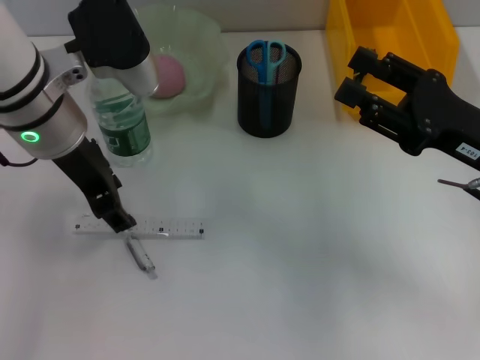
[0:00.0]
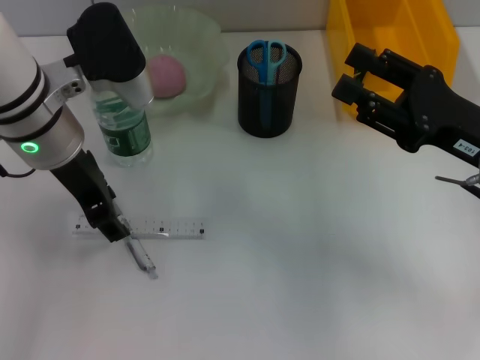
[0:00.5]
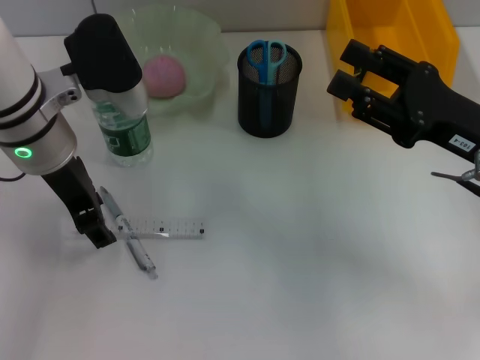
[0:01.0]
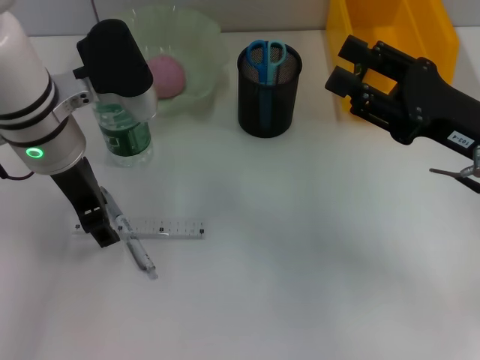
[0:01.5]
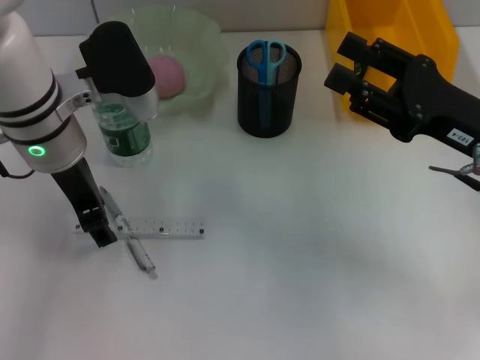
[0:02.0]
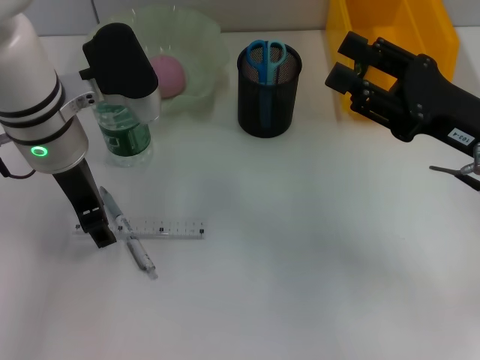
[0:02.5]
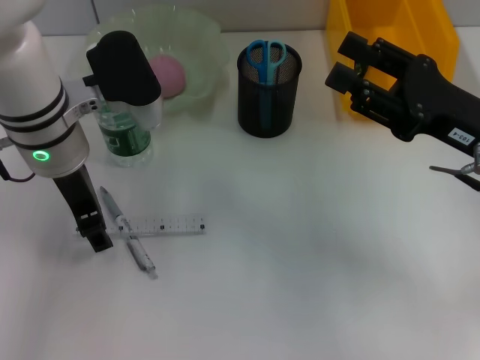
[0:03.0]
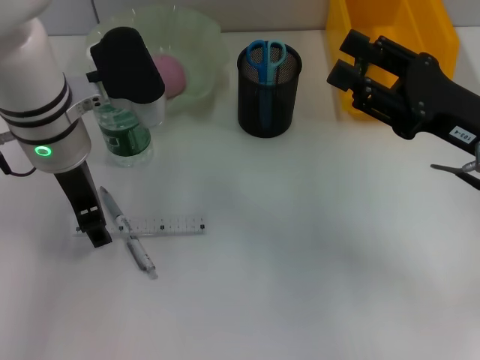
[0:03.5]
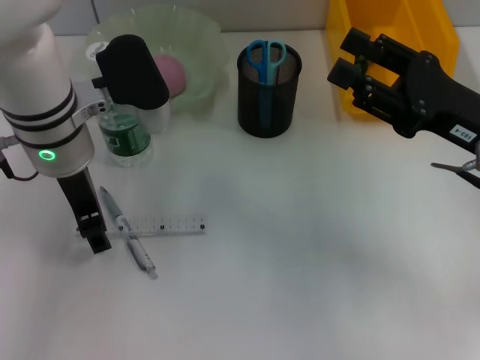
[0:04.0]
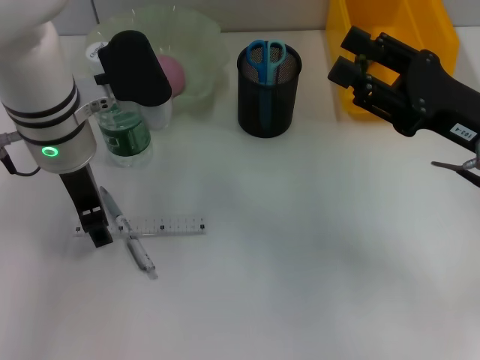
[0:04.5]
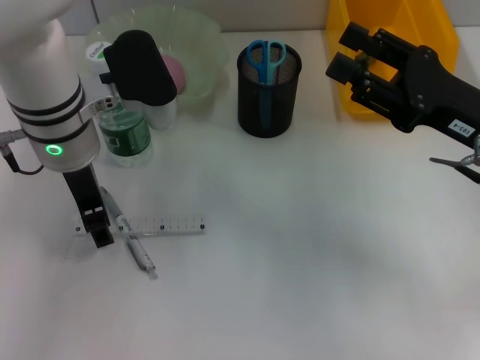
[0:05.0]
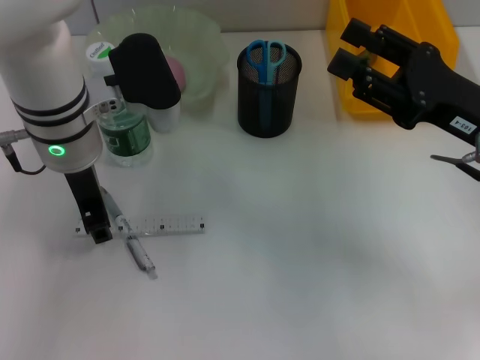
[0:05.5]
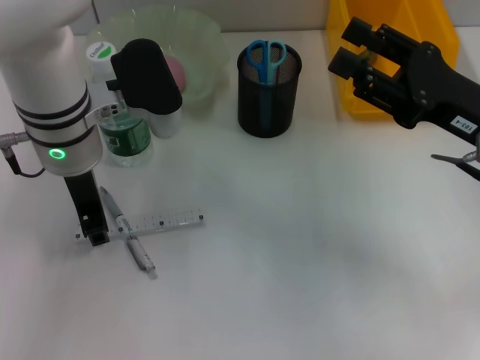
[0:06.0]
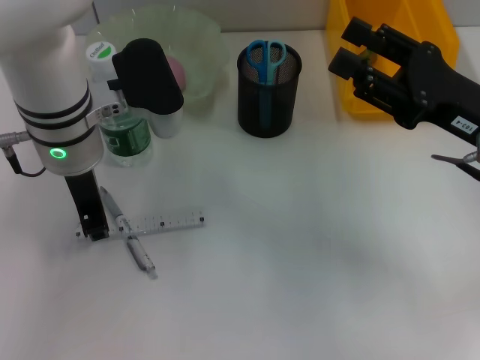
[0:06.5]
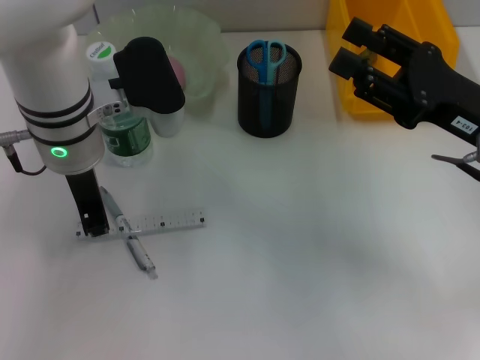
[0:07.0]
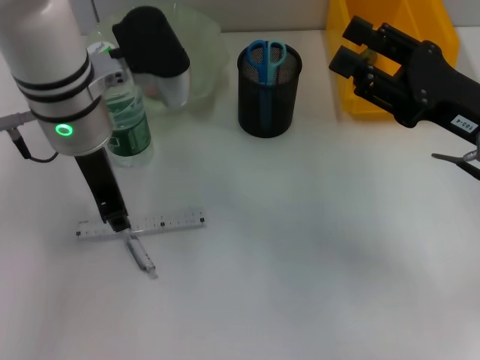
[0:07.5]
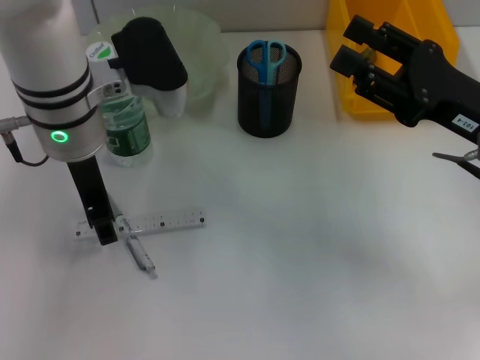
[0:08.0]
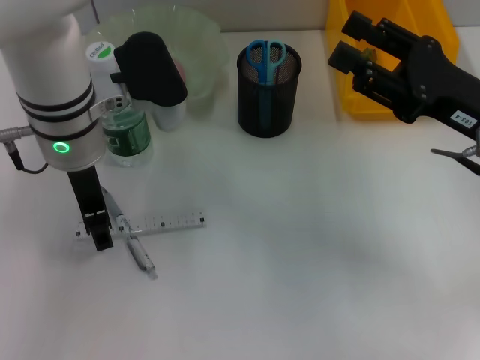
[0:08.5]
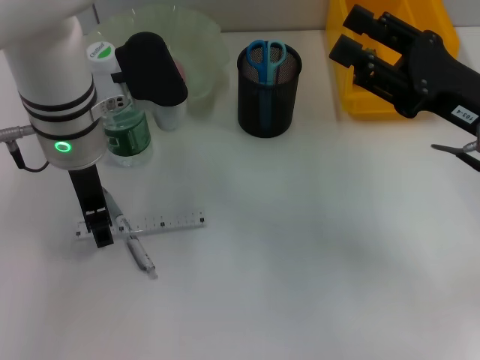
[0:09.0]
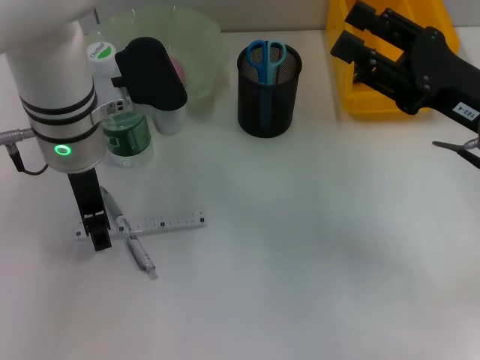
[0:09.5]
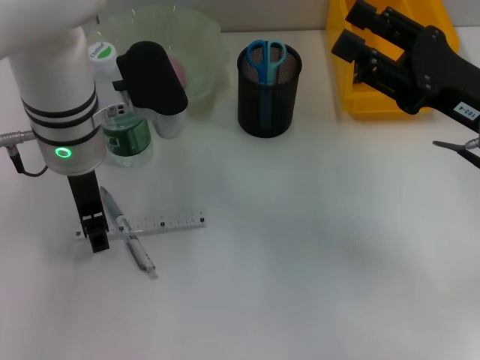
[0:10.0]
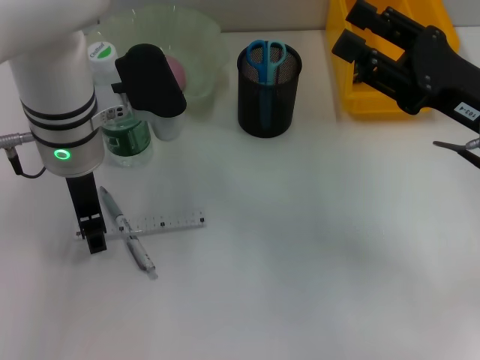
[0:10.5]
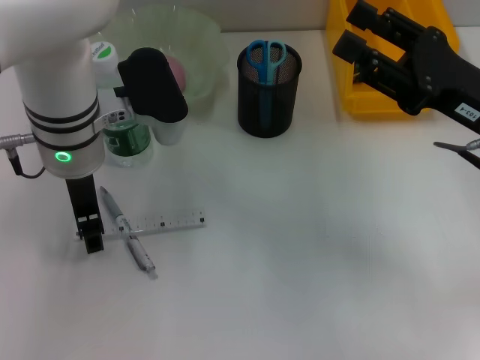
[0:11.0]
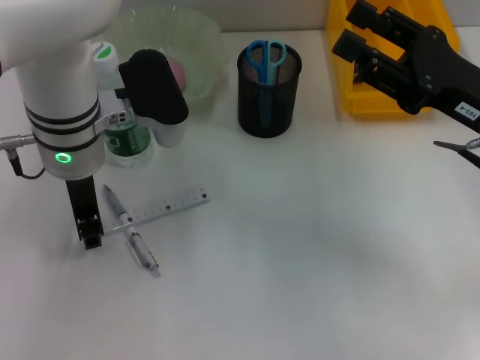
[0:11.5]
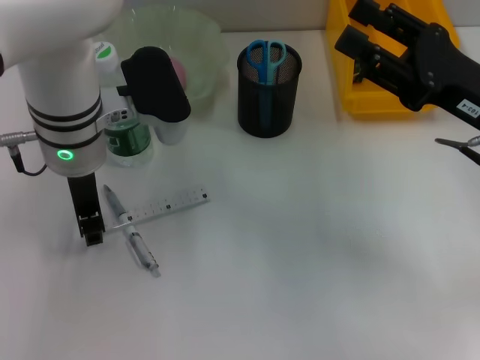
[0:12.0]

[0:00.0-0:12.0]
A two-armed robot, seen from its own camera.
0:00.0 to 0:04.0: There are only small adjustments of the grippers.
0:04.0 to 0:06.0: The left gripper closes its fingers.
0:06.0 to 0:10.0: The grippers stay close to where they were, moving slightly.
0:10.0 to 0:12.0: The two grippers keep their place.

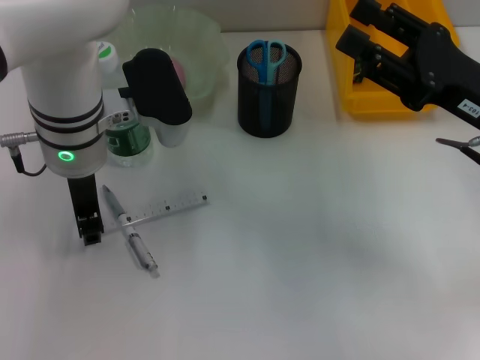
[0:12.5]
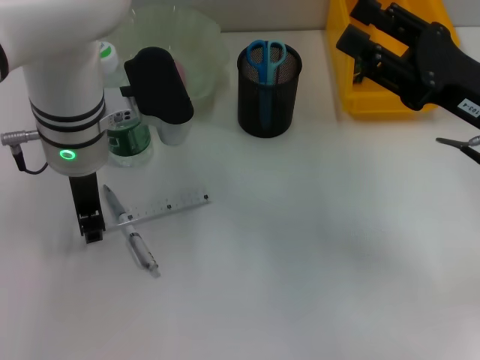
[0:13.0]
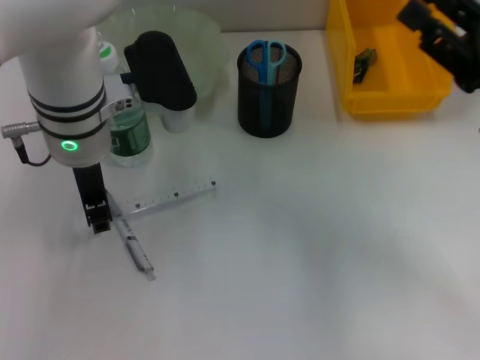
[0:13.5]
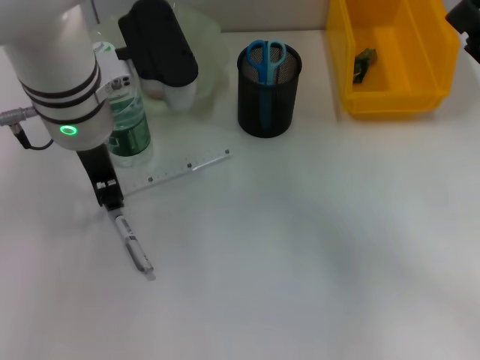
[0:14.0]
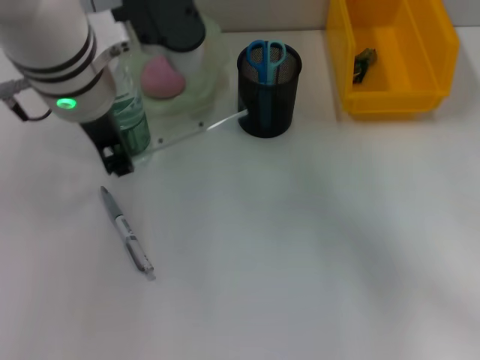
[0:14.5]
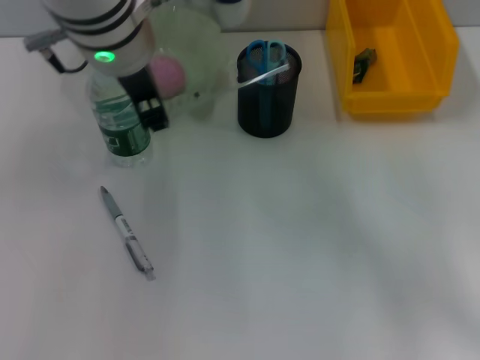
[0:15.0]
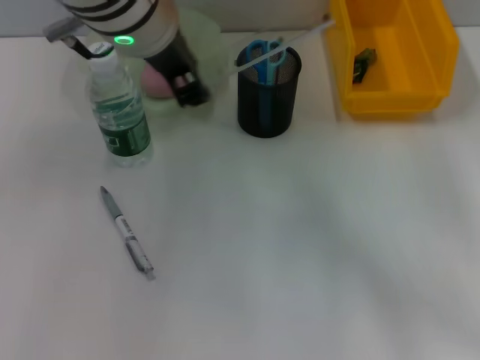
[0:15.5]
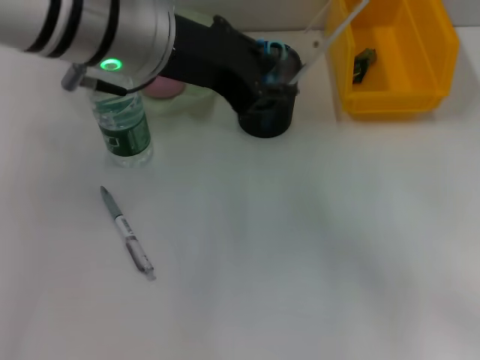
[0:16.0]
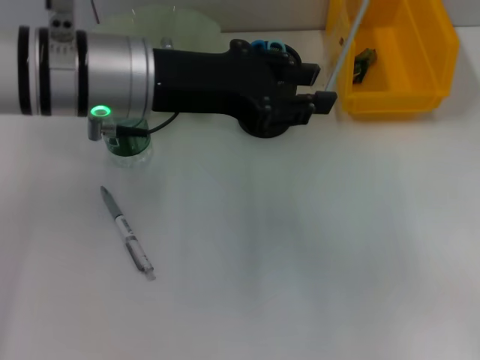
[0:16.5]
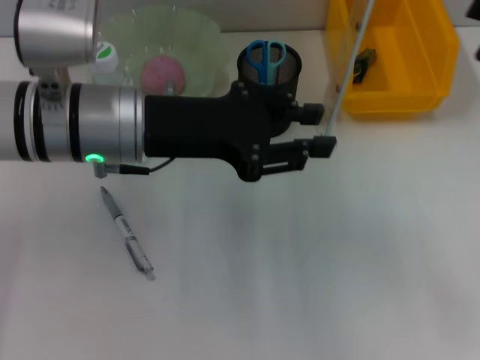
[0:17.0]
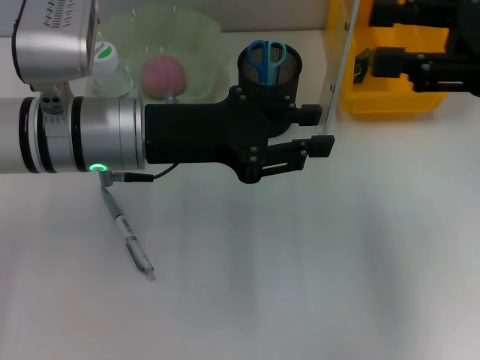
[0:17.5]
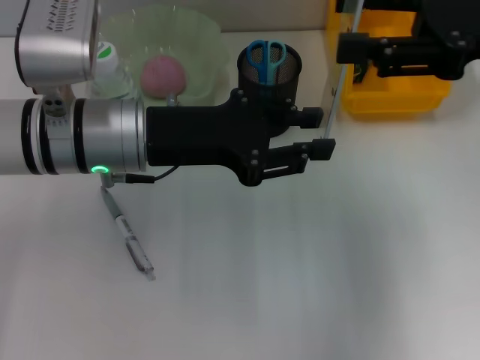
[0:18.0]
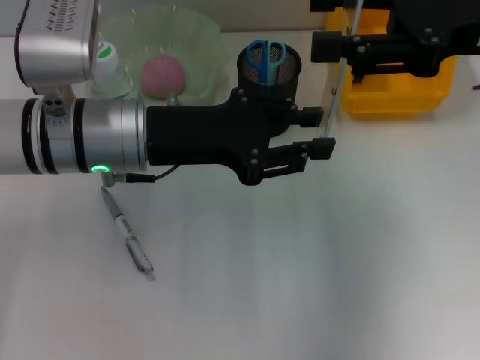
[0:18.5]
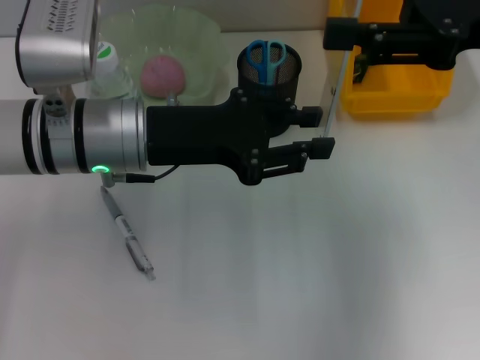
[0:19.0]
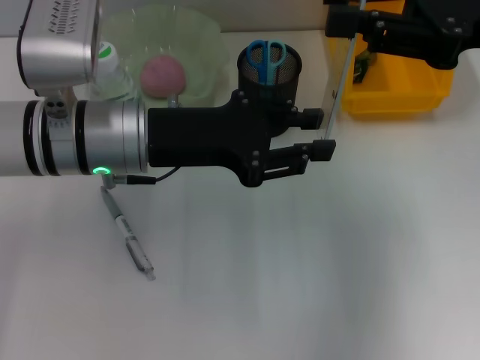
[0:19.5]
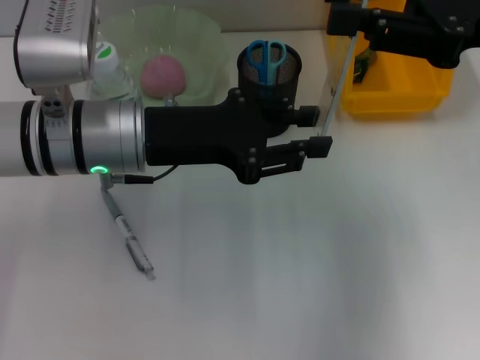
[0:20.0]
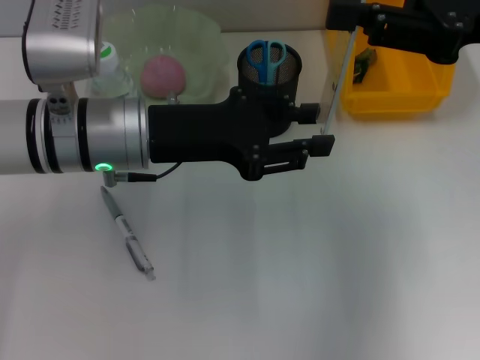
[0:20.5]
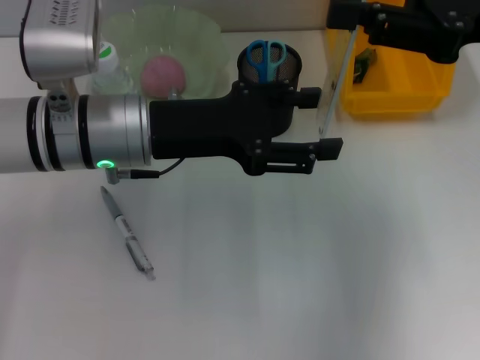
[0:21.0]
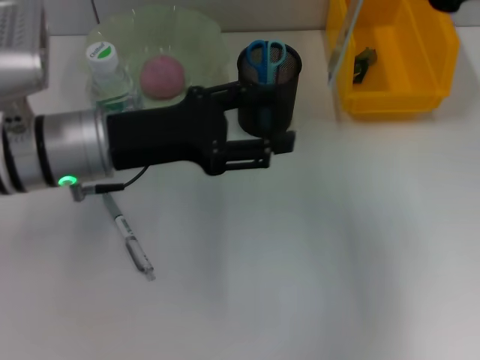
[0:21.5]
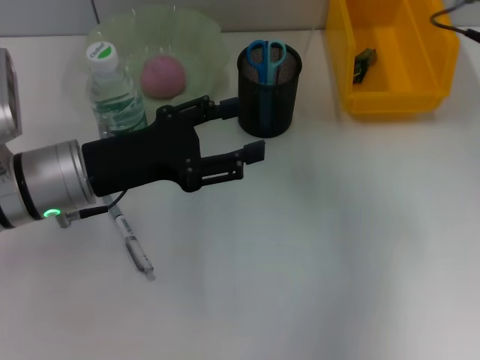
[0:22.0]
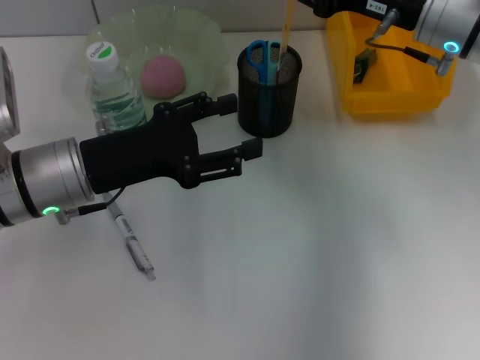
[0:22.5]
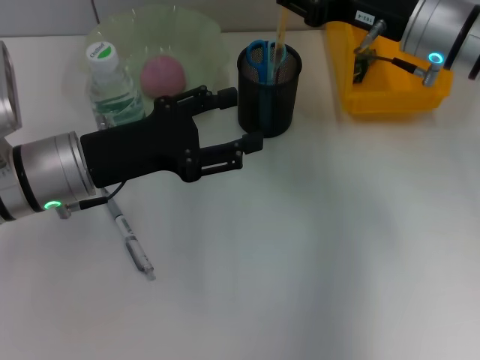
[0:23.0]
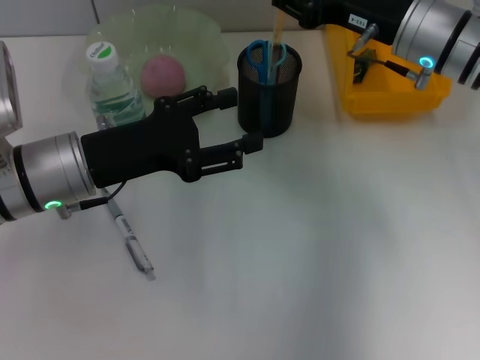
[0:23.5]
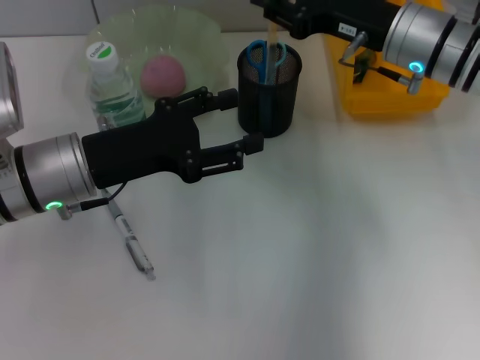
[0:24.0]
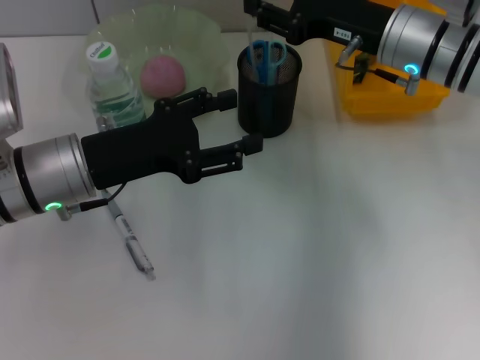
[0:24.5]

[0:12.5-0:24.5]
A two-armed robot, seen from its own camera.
Step, 0:13.5 to 0:20.5: Pass the ruler from the left hand to the right hand.
0:12.5 to 0:14.5: The left gripper goes roughly 10 cm upward. Meanwhile the right gripper shifts about 10 cm to the right and backward.
0:14.5 to 0:16.5: The right gripper is displaced upward by approximately 5 cm.
0:16.5 to 0:18.5: The left gripper moves downward, some 5 cm. Meanwhile the right gripper is displaced to the left, forward and upward by roughly 15 cm.
0:18.5 to 0:20.5: The right gripper closes.
0:20.5 to 0:22.5: The right gripper goes some 10 cm forward and downward. Meanwhile the left gripper shifts about 5 cm to the left, and opens.
0:22.5 to 0:24.5: The grippers make only small movements.

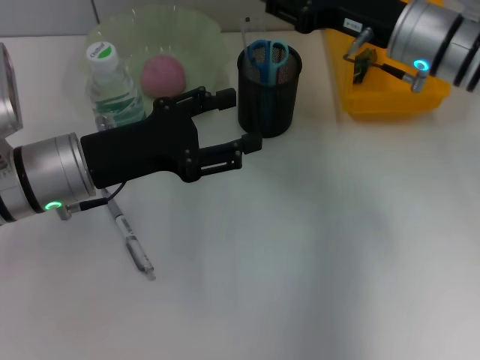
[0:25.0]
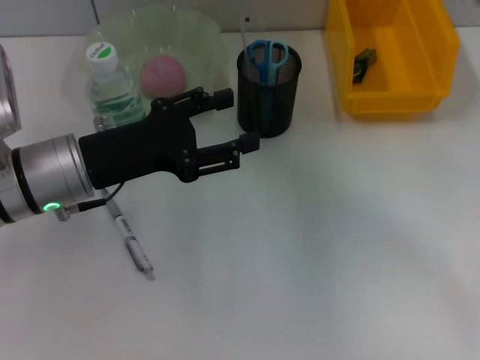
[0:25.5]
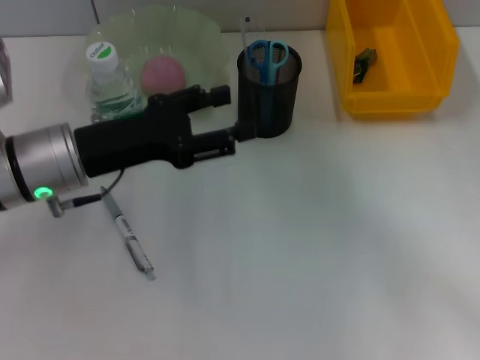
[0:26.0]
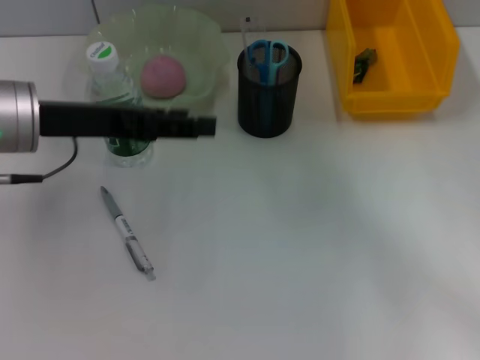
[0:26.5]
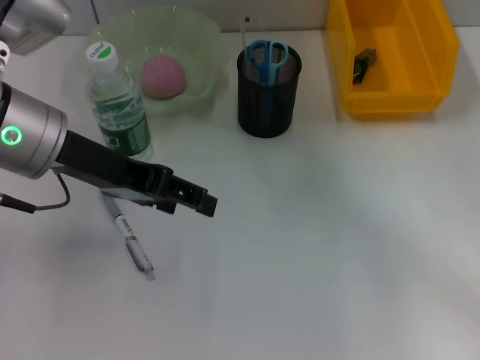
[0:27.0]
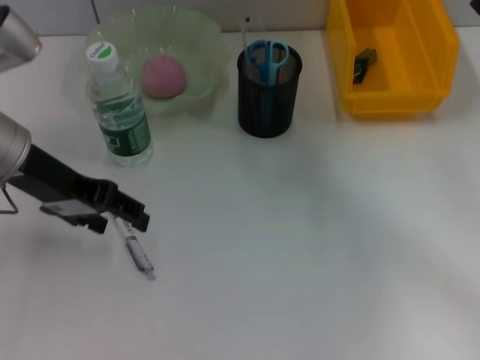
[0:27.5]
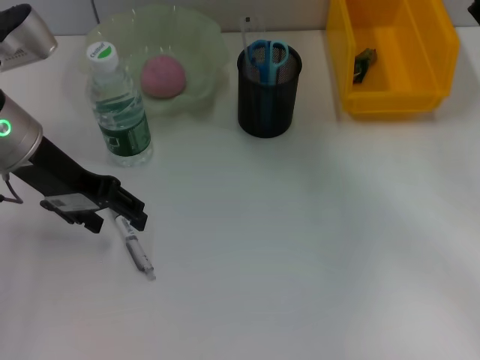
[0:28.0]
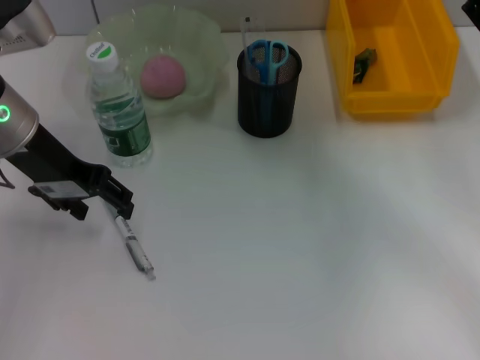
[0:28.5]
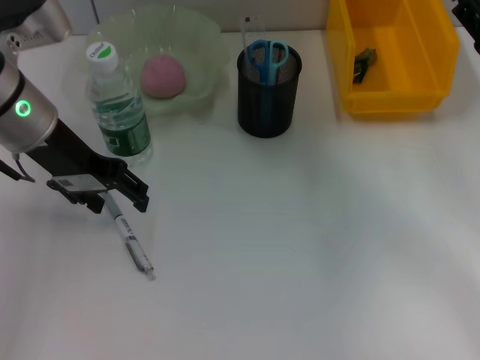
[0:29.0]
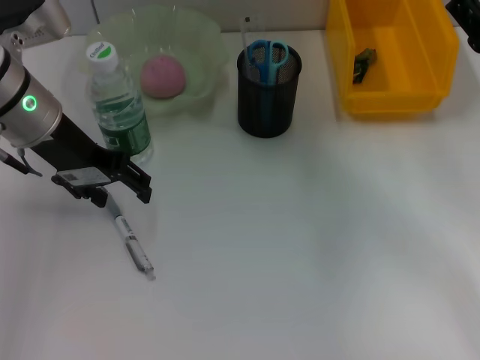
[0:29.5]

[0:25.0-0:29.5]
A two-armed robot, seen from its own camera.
0:25.0 to 0:27.0: The right gripper goes roughly 20 cm to the right and backward, while the left gripper goes about 10 cm upward.
0:27.0 to 0:29.5: The grippers both shift forward by roughly 5 cm.
